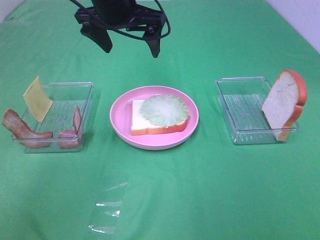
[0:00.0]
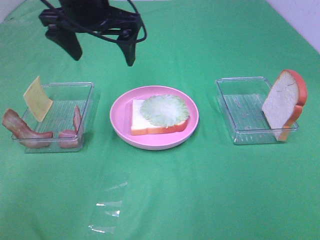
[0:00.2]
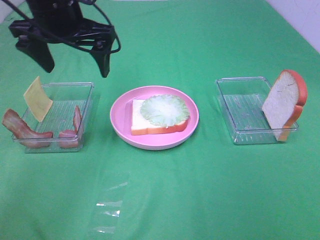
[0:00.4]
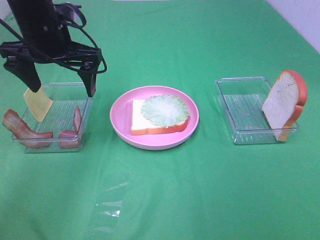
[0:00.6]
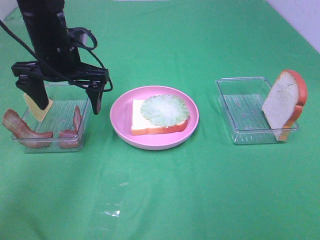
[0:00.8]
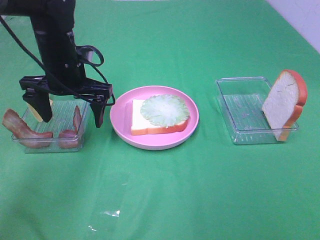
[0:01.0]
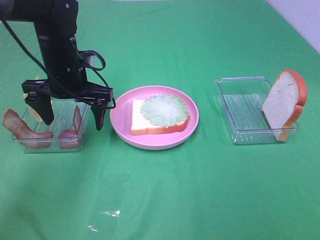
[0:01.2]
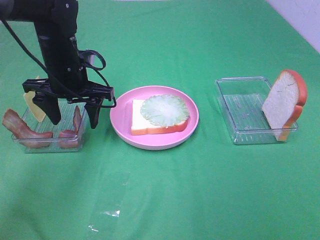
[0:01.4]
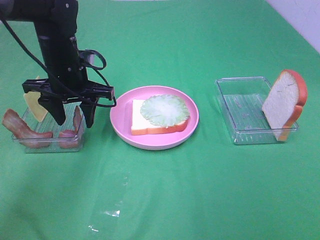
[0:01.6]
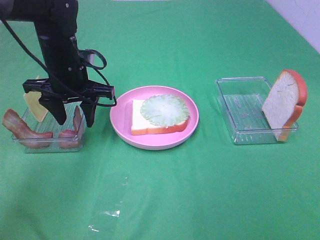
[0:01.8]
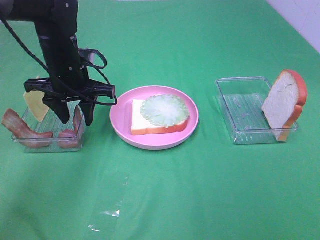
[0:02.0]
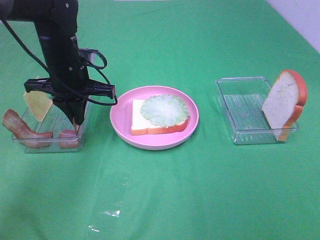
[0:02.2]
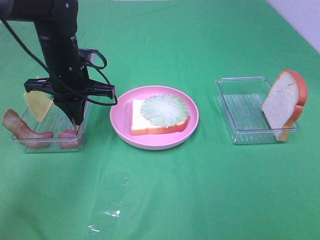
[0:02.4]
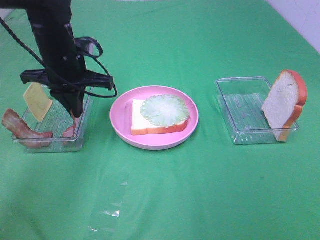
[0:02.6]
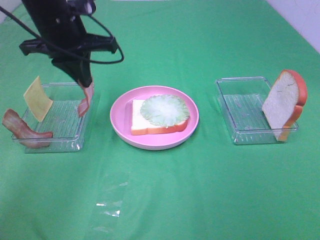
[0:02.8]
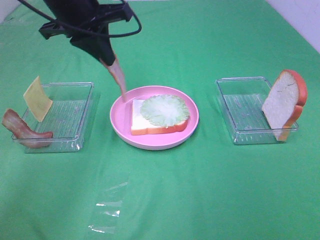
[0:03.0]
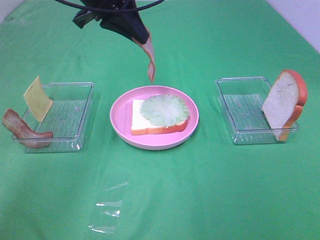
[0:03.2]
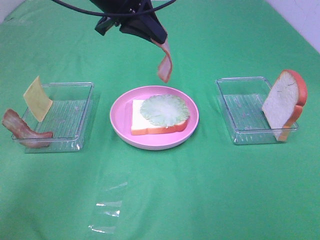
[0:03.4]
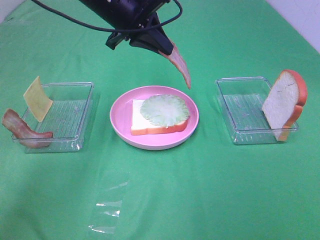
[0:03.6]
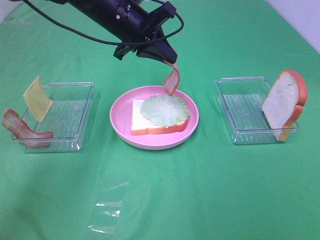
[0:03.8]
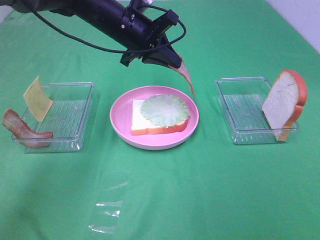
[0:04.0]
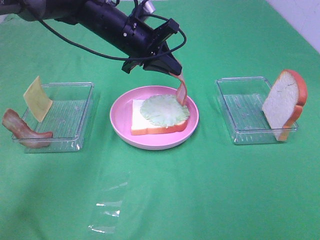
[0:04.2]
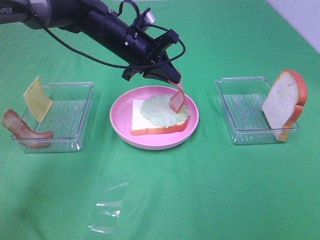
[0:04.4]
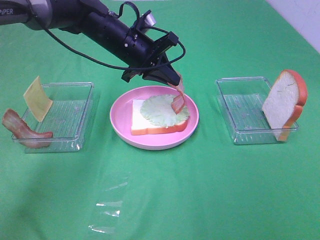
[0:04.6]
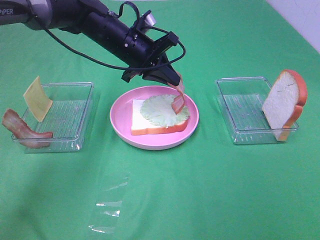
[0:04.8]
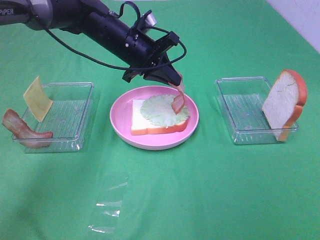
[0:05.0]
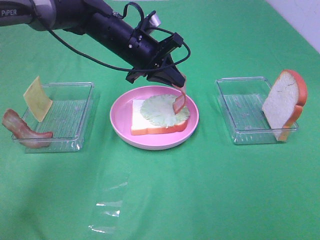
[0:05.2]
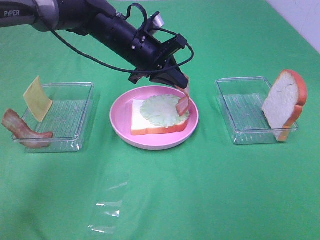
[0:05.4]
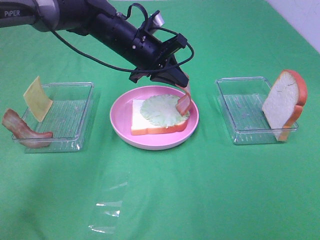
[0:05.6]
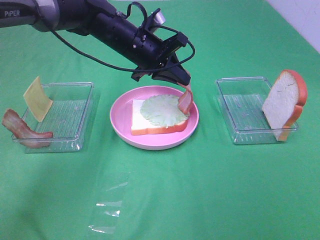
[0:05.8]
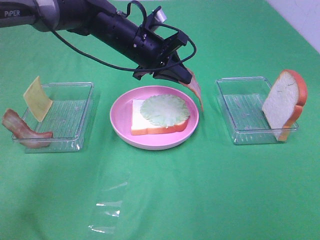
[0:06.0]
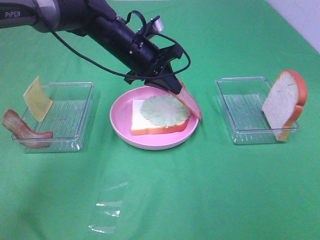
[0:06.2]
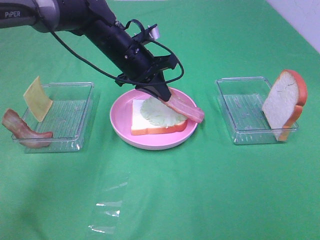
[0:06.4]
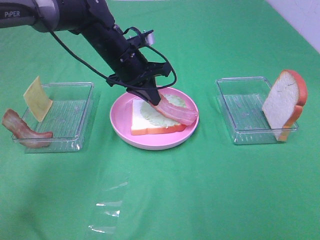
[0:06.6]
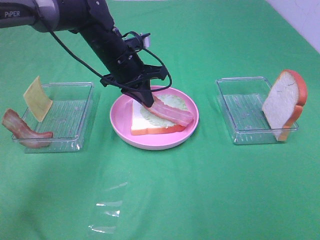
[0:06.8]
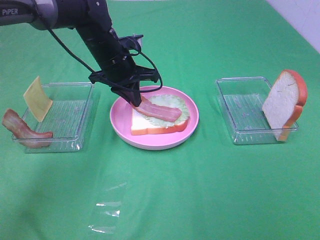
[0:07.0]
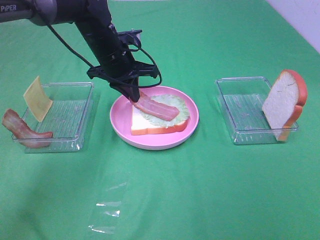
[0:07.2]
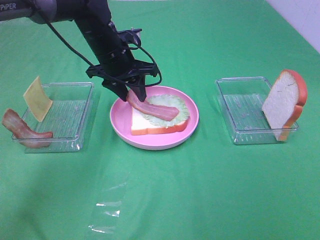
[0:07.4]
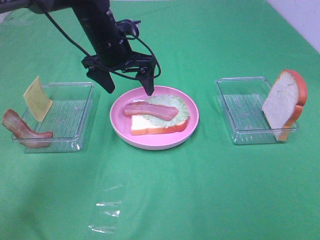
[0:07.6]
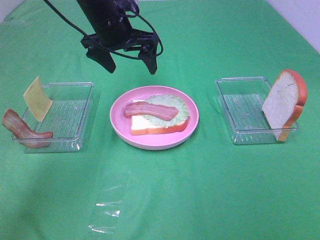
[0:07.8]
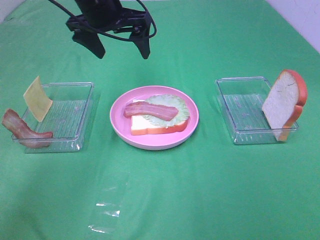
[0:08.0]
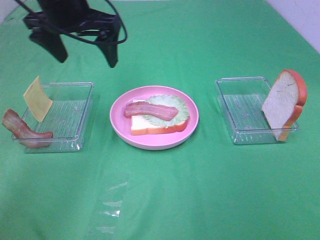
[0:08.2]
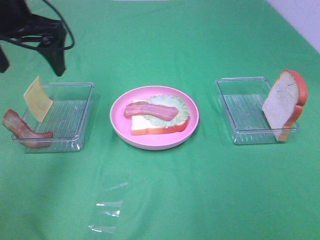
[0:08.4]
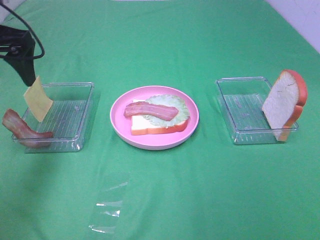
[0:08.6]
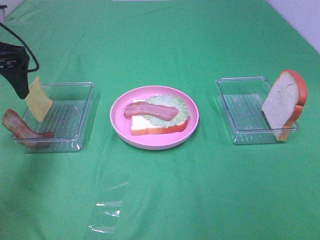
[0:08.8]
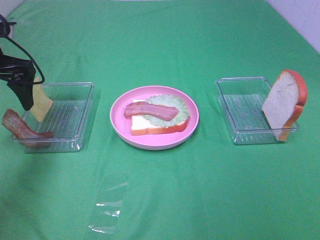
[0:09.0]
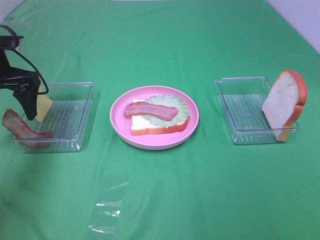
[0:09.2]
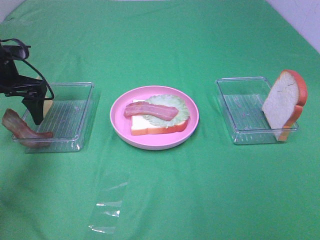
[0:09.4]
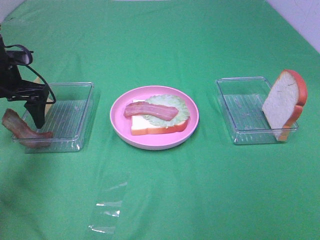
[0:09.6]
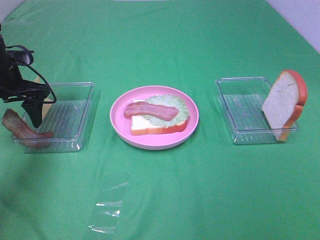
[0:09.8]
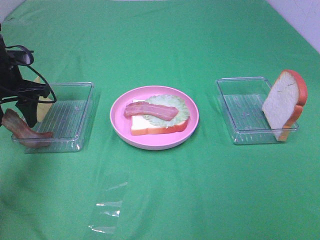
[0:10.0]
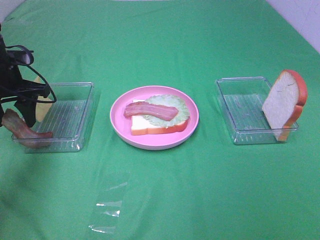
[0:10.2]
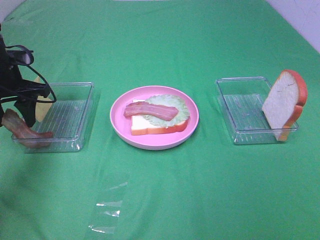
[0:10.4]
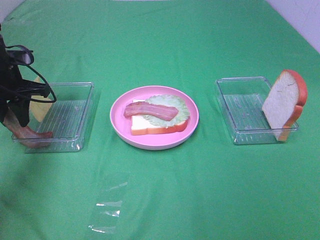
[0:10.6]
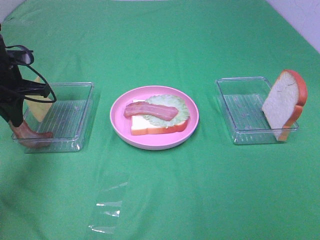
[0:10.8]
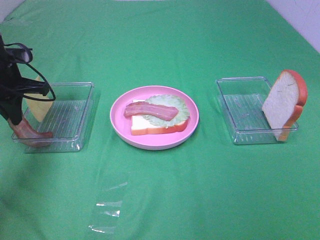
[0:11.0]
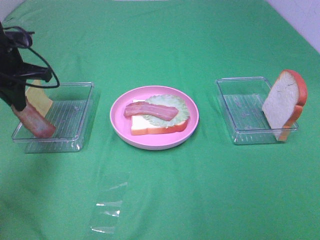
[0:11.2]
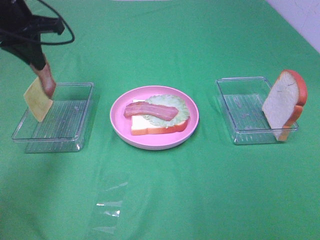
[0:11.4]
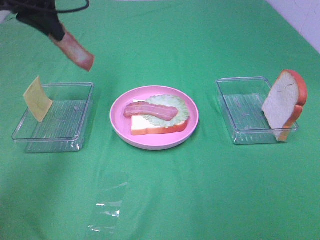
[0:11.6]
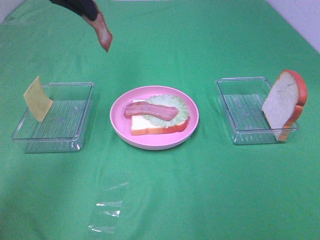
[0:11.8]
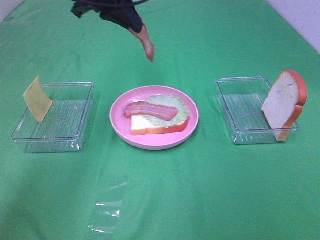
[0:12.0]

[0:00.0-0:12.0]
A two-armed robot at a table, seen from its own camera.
Task of the whole recording: Make sandwiches.
Step, 0:00.0 to 0:02.4: Left hand:grab the bacon.
Step, 0:02.6 to 0:07.4: Left hand:place bacon on lettuce slice.
Step, 0:07.6 to 0:10.8: Left hand:grab the bacon.
0:00.0 to 0:01.6: The left gripper moves downward and to the left, some 15 cm, and closes.
0:01.6 to 0:03.0: The left gripper goes roughly 15 cm upward, and closes its fingers.
0:03.0 to 0:04.4: The left gripper travels downward, to the right and forward by about 15 cm.
0:04.4 to 0:06.0: The grippers make only small movements.
0:06.0 to 0:07.6: The left gripper opens its fingers.
0:07.6 to 0:09.0: The left gripper is displaced to the left by roughly 20 cm.
0:09.0 to 0:10.4: The left gripper is displaced downward by approximately 5 cm, and closes its fingers.
0:10.4 to 0:12.0: The left gripper goes about 20 cm to the right and upward, and closes its fingers.

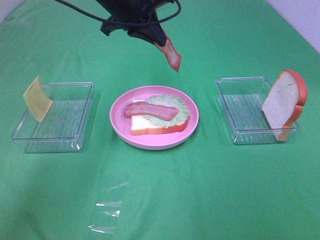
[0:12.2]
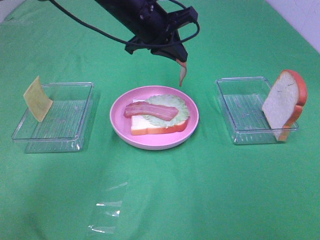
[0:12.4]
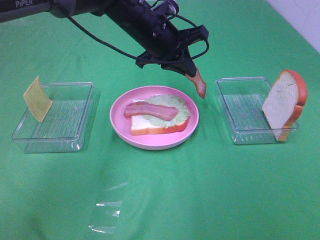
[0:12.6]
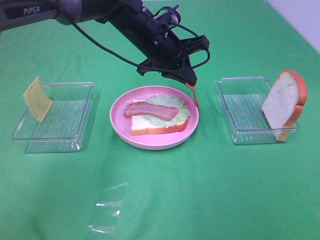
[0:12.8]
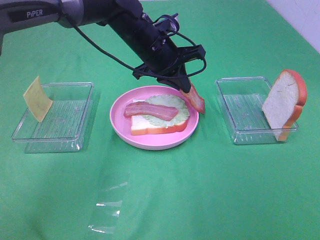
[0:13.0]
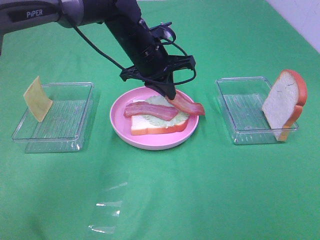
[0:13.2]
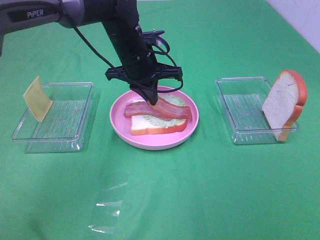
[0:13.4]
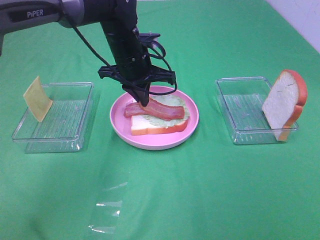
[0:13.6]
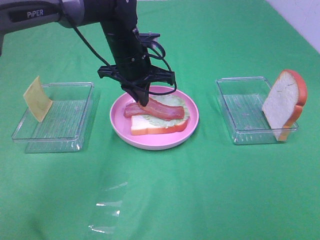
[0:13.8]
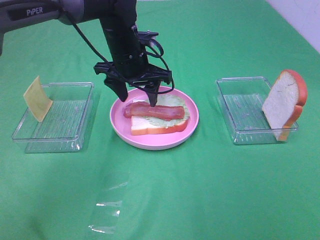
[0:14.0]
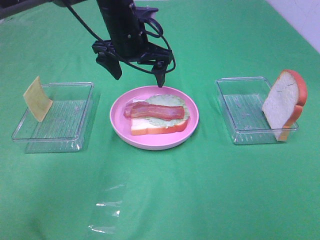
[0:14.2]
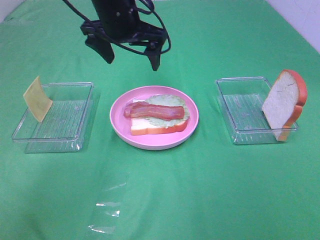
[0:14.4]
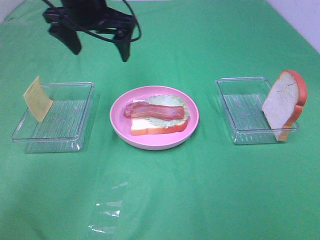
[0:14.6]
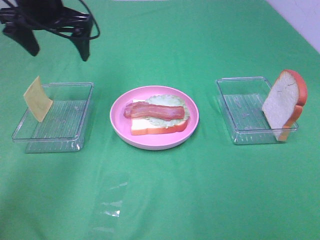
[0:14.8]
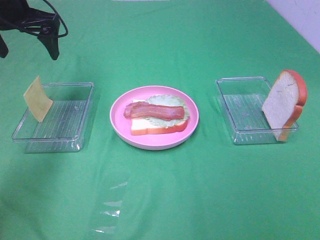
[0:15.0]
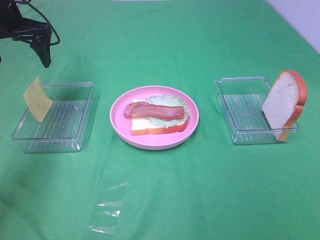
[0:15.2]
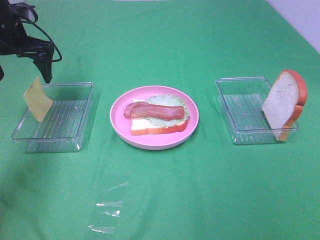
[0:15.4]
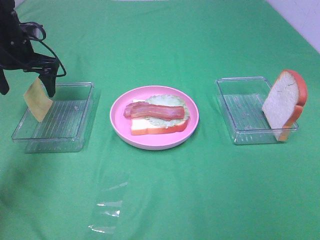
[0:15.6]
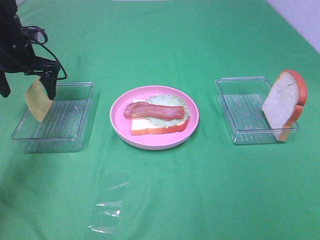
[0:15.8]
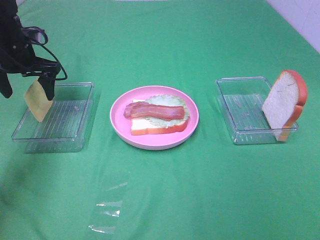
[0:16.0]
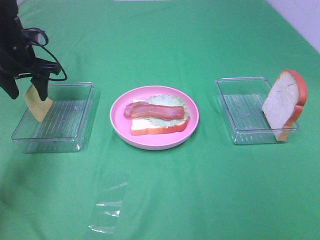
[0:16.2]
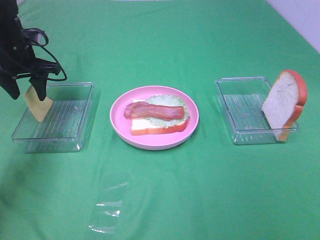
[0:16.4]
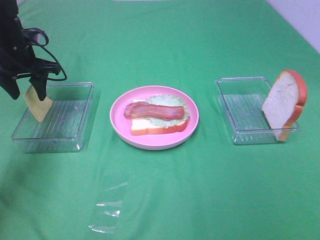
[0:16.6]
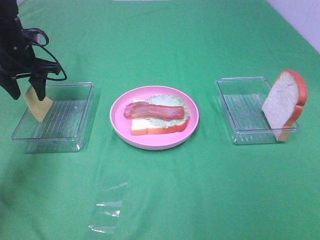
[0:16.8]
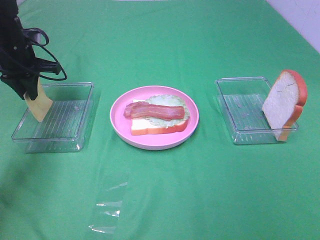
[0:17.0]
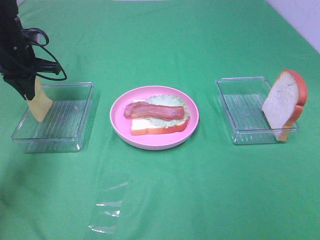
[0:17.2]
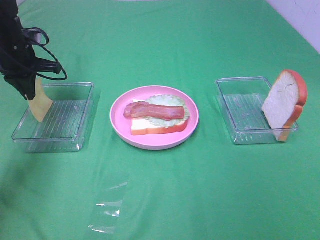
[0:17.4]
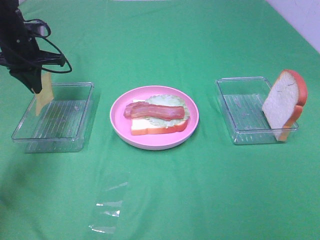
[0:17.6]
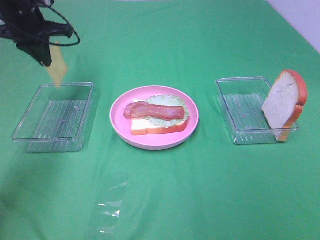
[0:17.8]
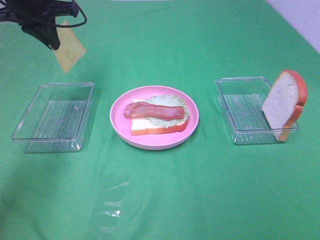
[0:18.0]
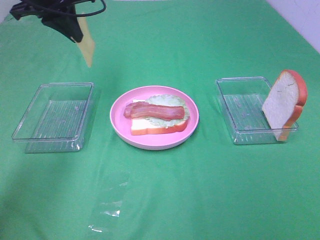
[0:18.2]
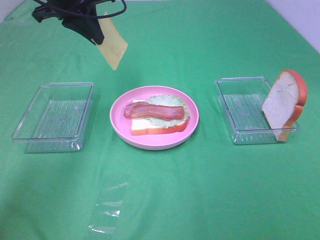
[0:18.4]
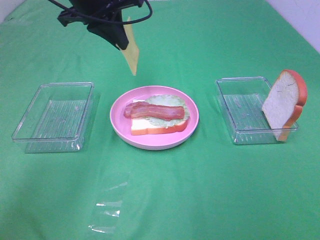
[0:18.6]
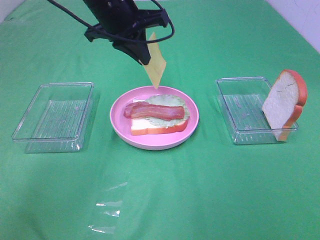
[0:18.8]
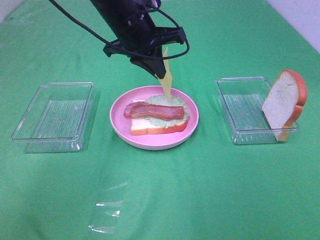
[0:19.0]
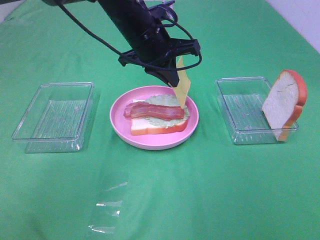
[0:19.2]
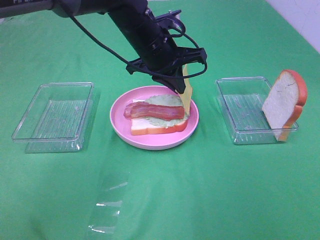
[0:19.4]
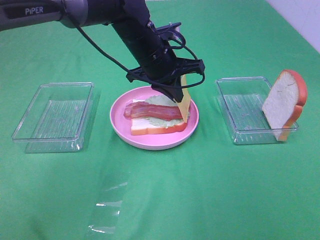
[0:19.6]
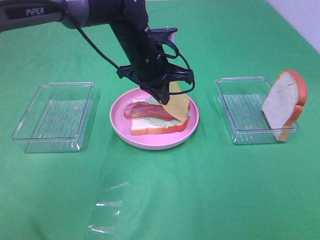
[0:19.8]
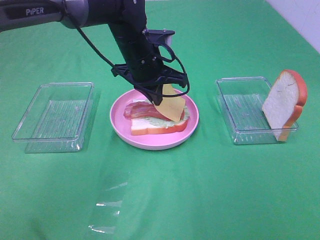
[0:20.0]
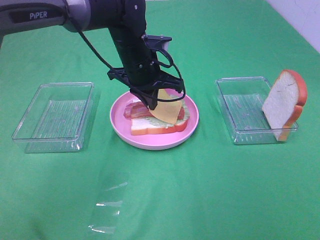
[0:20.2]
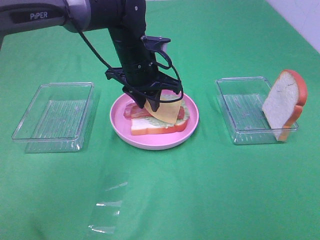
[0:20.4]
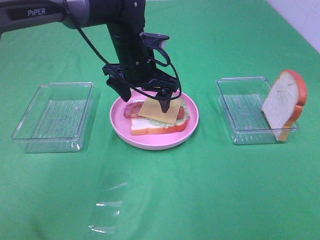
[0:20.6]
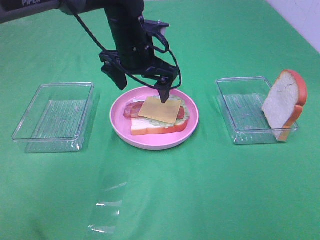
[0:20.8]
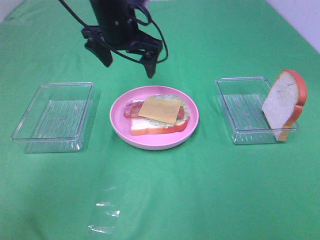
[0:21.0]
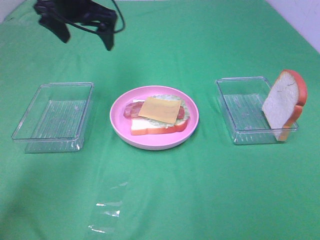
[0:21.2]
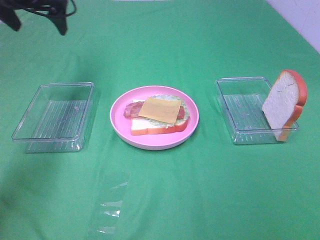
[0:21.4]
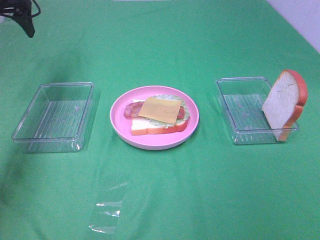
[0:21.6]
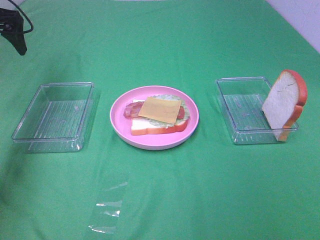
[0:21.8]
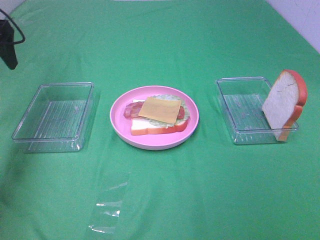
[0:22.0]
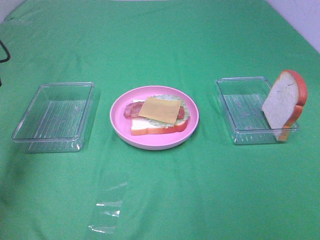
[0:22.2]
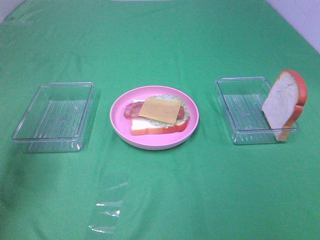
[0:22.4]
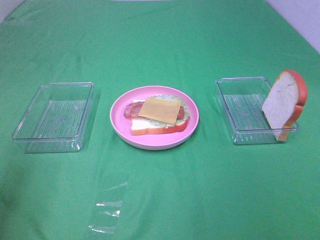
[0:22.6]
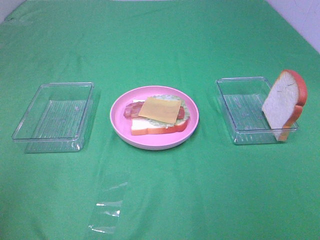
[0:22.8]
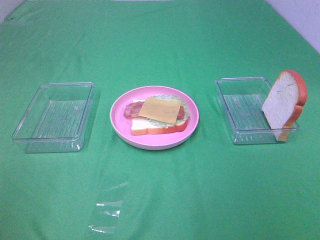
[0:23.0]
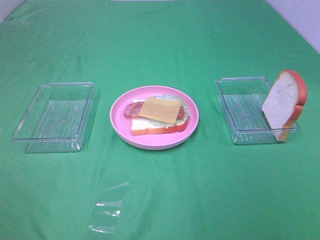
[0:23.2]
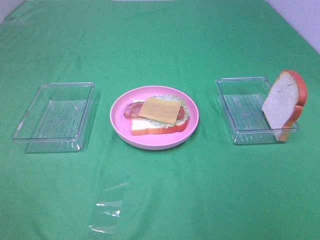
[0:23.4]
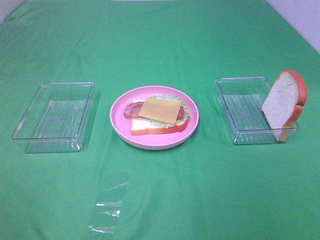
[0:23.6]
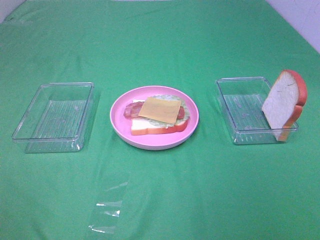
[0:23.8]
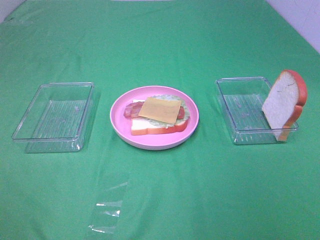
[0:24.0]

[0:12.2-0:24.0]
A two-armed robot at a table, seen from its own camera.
Task of the whole recording: Make sandwiches.
Step, 0:12.2 to 0:14.0: Left hand:place bacon on bacon.
Step, 0:14.2 to 0:17.2: Left hand:grab the cheese slice.
Step, 0:17.4 to 0:20.6: Left hand:place the cheese slice on top of the bacon.
0:12.2 to 0:13.6: The left gripper travels downward by approximately 10 cm.
0:13.6 to 0:15.2: The left gripper goes some 25 cm to the left, and opens its fingers.
0:15.2 to 0:16.6: The left gripper moves downward, some 10 cm, and closes its fingers.
0:16.6 to 0:18.2: The left gripper heads upward and to the right, covering roughly 15 cm, and closes.
0:18.2 to 0:19.6: The left gripper is displaced to the right and downward by approximately 20 cm.
0:19.6 to 0:21.0: The left gripper is displaced to the left and upward by approximately 10 cm, and opens.
0:21.0 to 0:22.6: The left gripper is displaced backward and to the left by approximately 40 cm.
0:22.6 to 0:24.0: The left gripper shifts roughly 15 cm backward.
